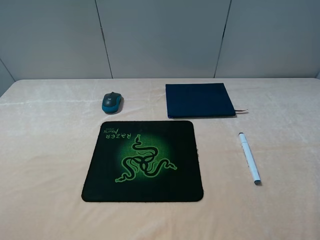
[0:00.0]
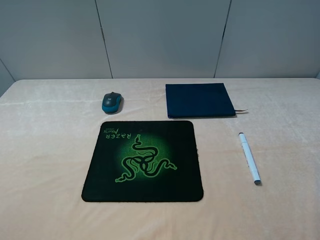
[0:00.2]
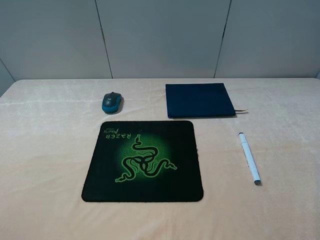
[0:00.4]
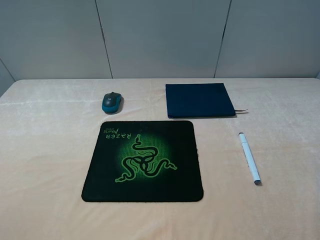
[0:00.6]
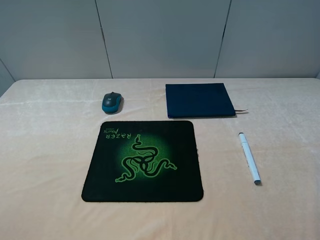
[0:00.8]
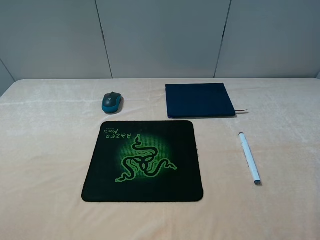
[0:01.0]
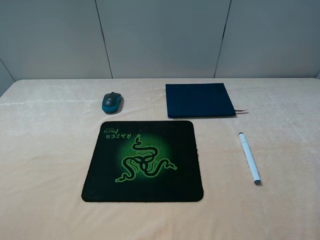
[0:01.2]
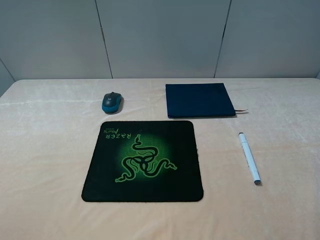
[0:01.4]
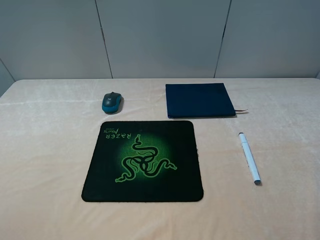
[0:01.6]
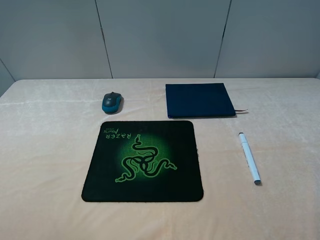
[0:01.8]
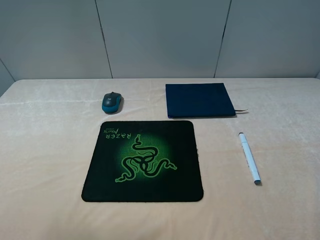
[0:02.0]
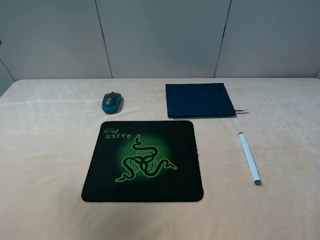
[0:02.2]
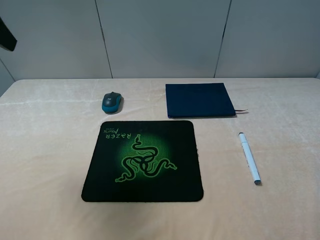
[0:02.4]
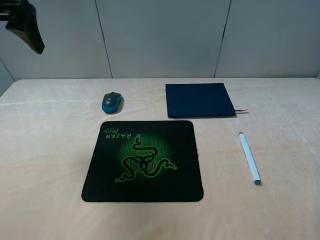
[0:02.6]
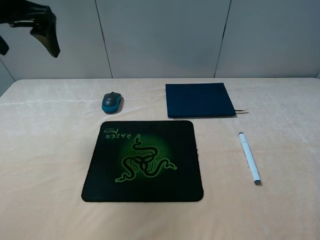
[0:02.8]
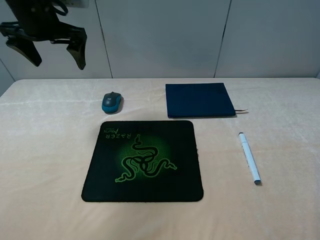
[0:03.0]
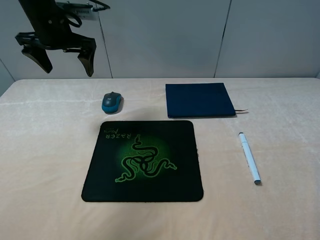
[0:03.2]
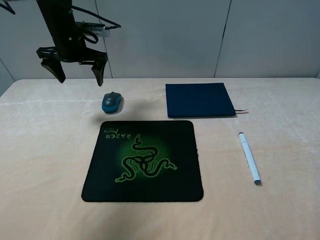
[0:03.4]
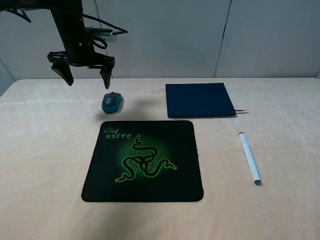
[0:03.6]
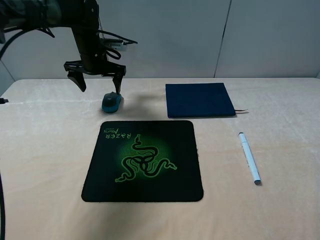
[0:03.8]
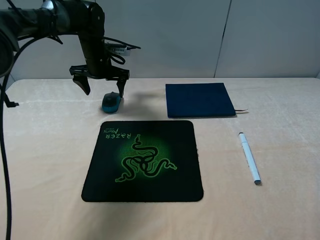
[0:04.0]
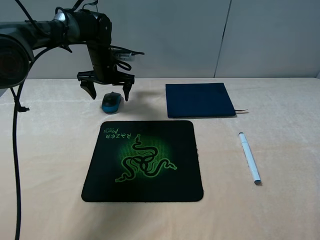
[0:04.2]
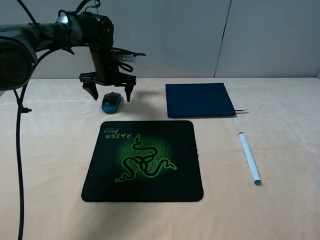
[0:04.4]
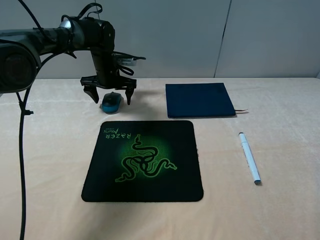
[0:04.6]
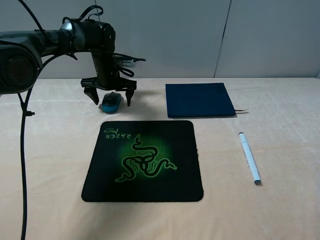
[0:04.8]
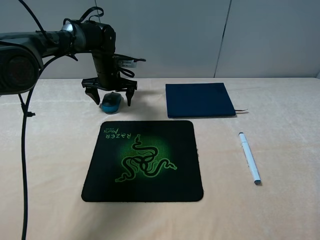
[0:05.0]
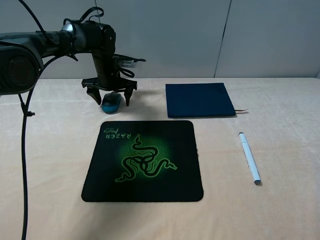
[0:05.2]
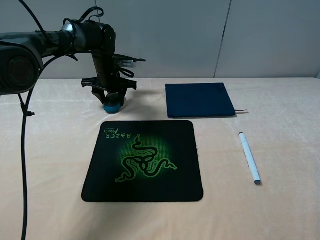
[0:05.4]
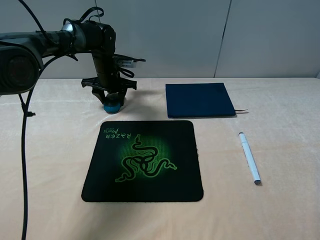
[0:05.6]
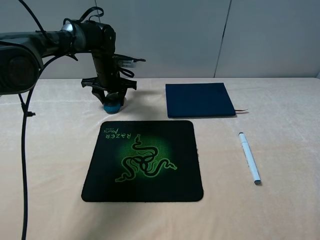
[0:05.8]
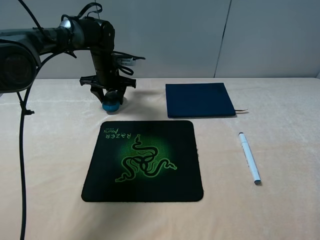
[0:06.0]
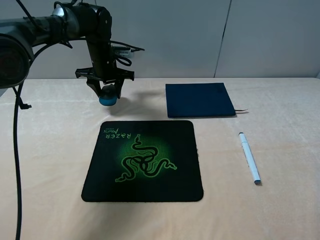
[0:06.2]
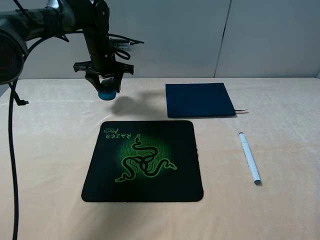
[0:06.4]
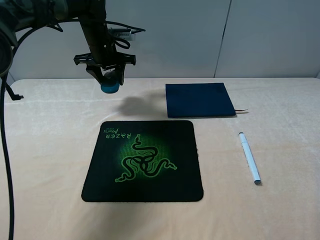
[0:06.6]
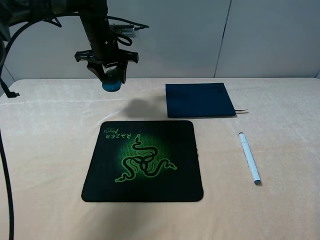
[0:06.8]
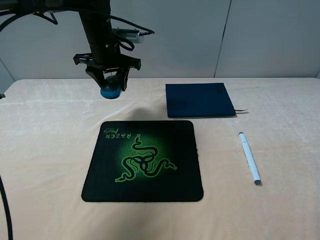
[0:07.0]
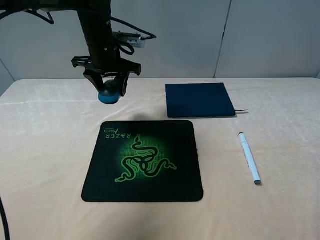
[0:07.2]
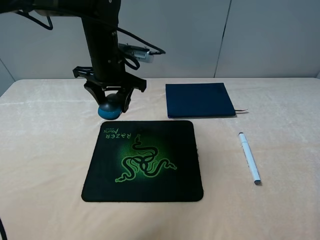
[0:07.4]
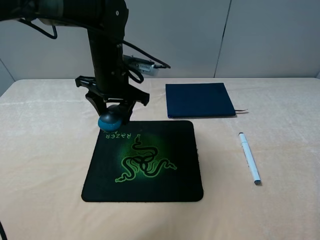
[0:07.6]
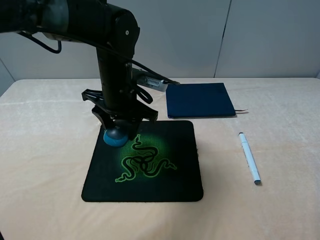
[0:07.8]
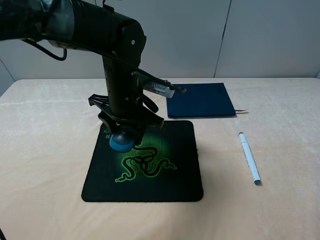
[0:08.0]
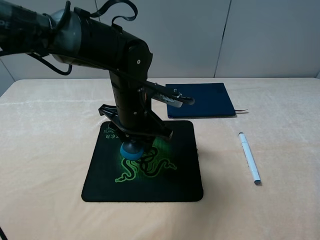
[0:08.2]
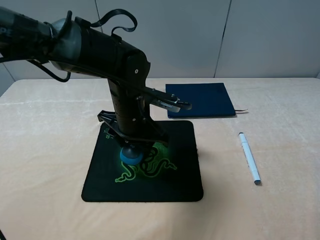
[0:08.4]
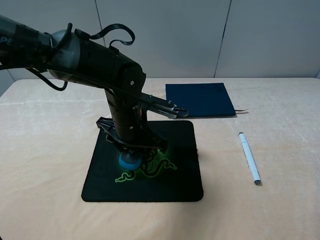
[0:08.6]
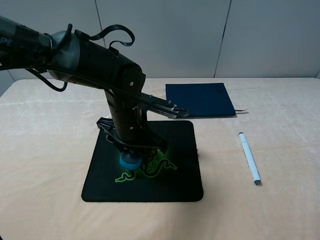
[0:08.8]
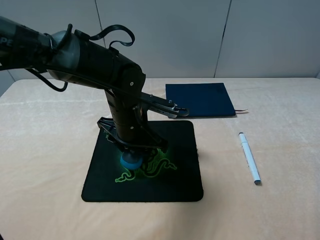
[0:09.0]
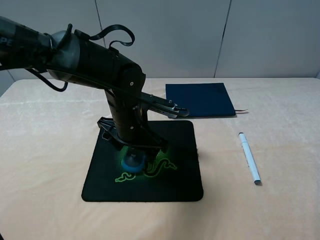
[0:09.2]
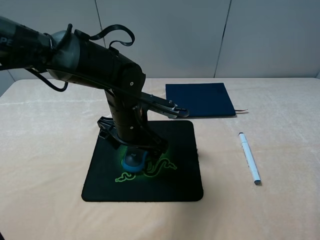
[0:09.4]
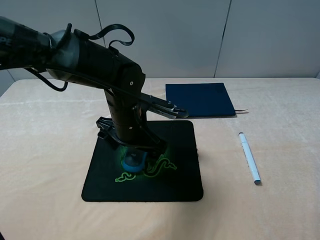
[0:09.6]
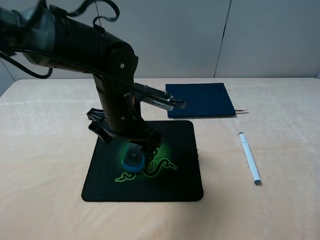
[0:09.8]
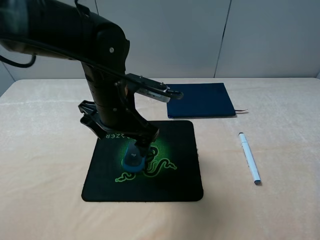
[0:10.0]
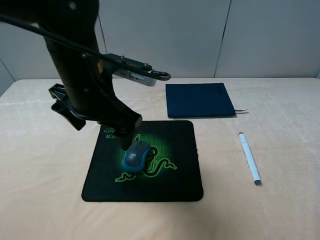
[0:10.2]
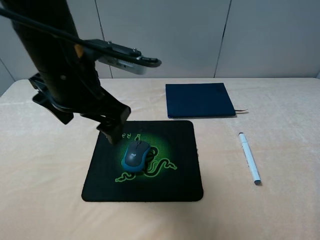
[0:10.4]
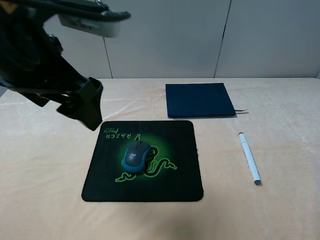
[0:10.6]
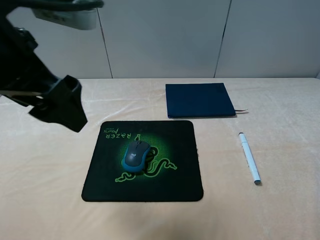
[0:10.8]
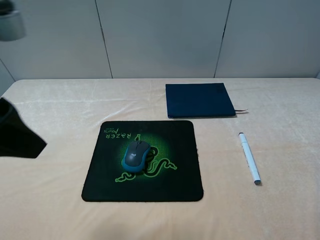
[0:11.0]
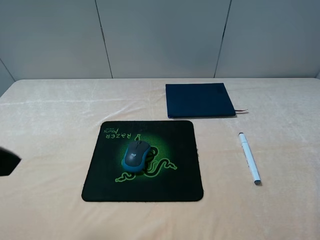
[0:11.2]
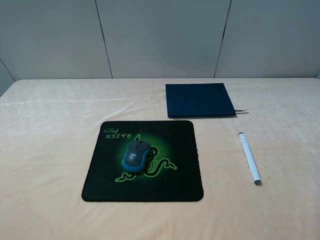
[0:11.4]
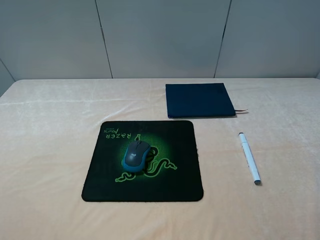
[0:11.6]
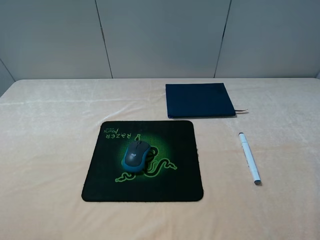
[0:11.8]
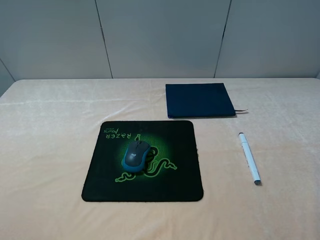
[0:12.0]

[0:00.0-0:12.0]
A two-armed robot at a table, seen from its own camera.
Step, 0:00.0 to 0:05.6: Grasp the mouse with the left gripper.
Step, 0:05.8 to 0:09.8: Place the mouse on the mouse pad with the left gripper.
0:01.6 to 0:03.0: The left gripper moves forward, some 35 cm.
0:03.0 to 0:04.4: The left gripper is displaced downward, forward and to the right by about 20 cm.
0:04.4 to 0:06.0: The left gripper closes its fingers.
0:06.0 to 0:07.6: The left gripper is displaced backward, upward and to the right by some 20 cm.
0:07.6 to 0:09.0: The left gripper travels downward and backward by roughly 10 cm.
0:09.0 to 0:10.4: The left gripper travels upward and to the left by some 15 cm, and opens.
0:10.4 to 0:12.0: The left gripper goes some 25 cm to the left and backward.

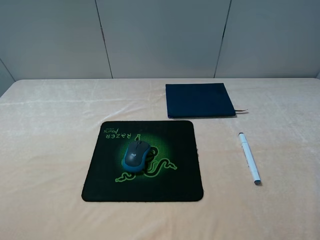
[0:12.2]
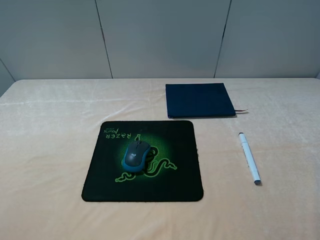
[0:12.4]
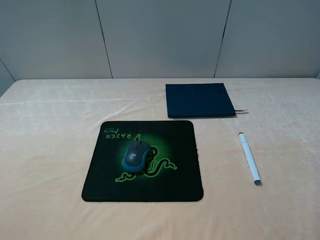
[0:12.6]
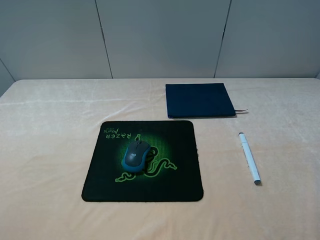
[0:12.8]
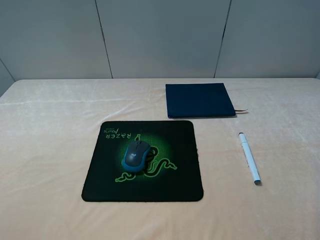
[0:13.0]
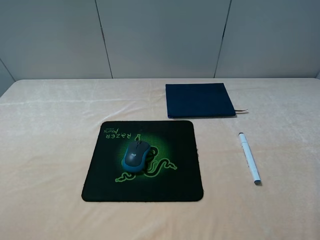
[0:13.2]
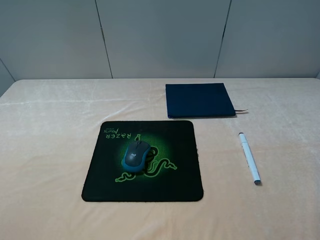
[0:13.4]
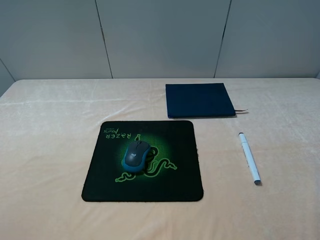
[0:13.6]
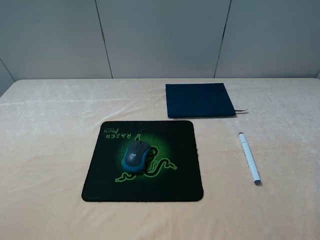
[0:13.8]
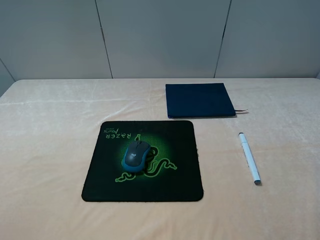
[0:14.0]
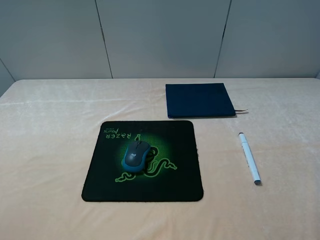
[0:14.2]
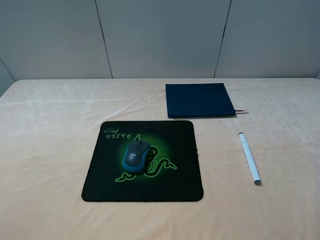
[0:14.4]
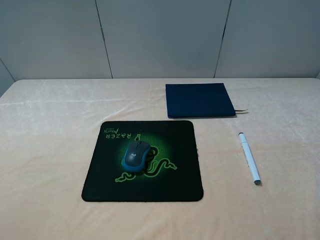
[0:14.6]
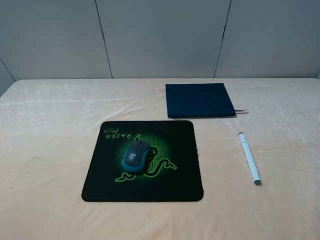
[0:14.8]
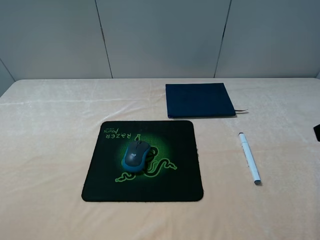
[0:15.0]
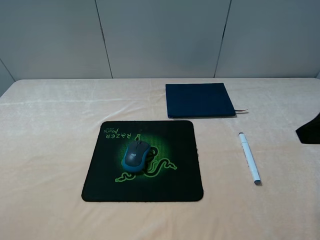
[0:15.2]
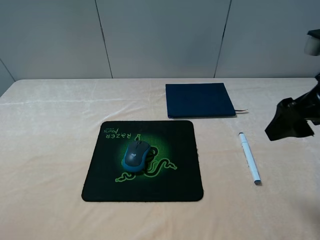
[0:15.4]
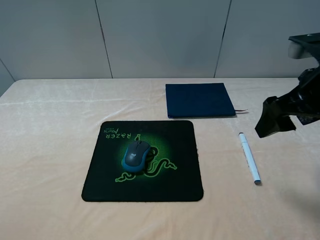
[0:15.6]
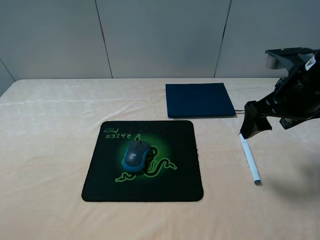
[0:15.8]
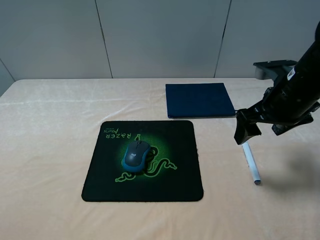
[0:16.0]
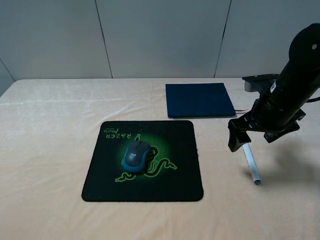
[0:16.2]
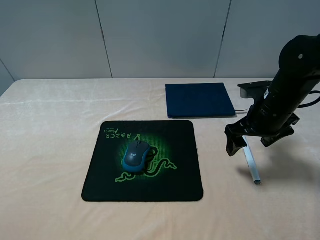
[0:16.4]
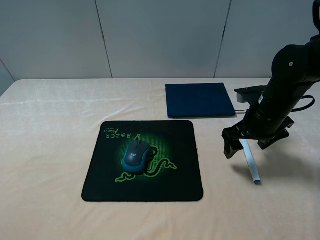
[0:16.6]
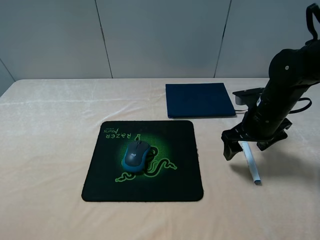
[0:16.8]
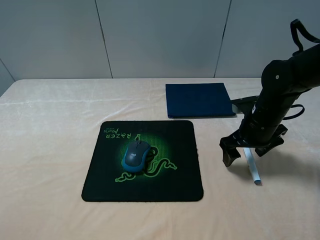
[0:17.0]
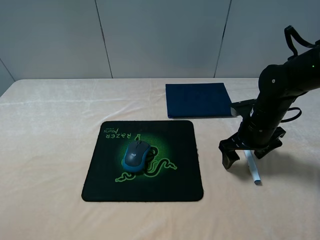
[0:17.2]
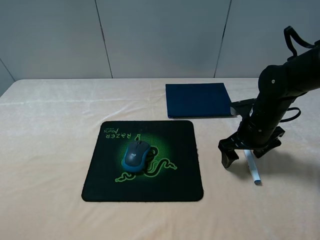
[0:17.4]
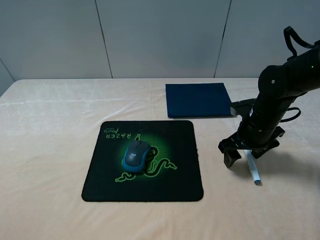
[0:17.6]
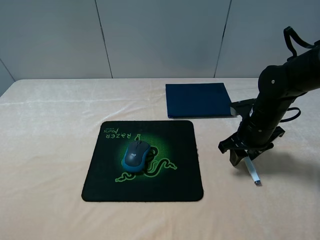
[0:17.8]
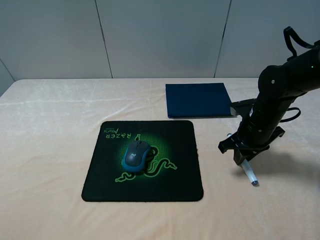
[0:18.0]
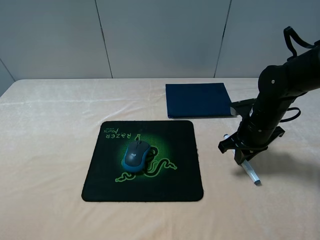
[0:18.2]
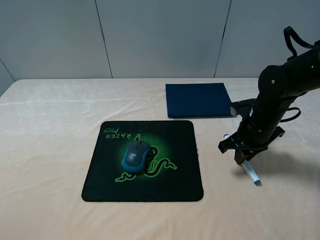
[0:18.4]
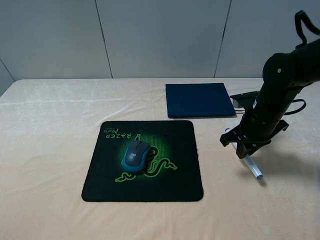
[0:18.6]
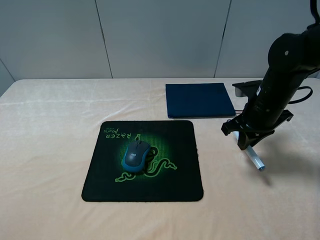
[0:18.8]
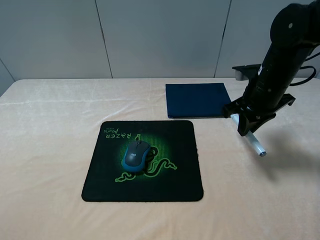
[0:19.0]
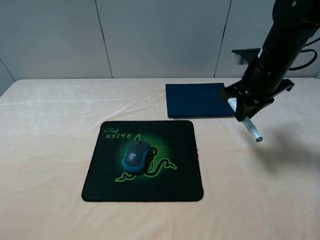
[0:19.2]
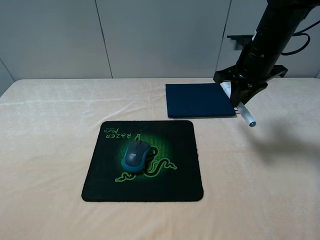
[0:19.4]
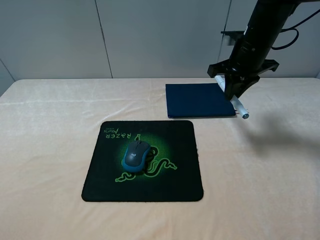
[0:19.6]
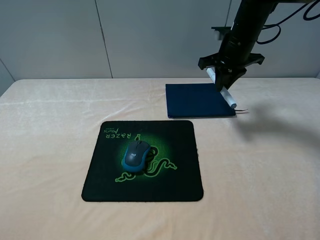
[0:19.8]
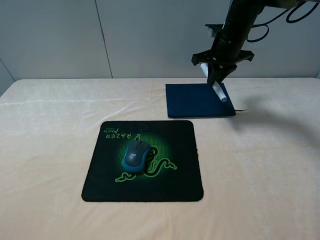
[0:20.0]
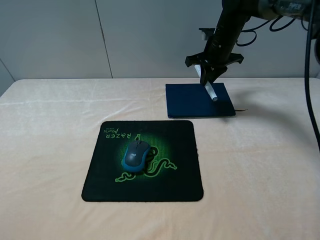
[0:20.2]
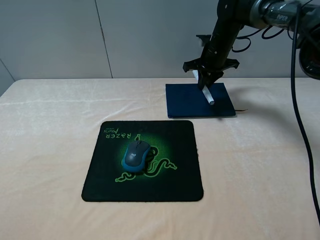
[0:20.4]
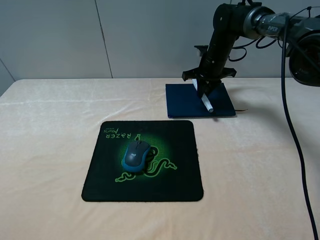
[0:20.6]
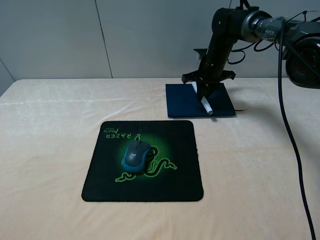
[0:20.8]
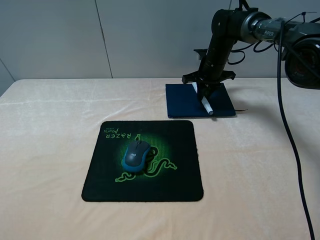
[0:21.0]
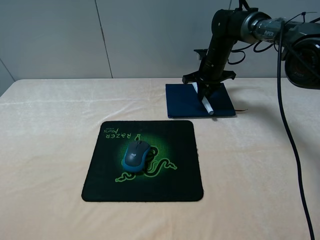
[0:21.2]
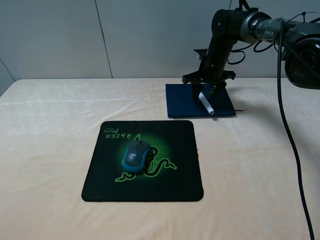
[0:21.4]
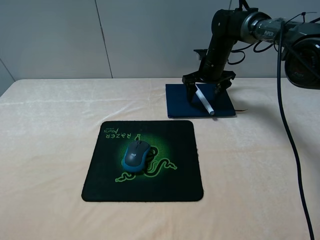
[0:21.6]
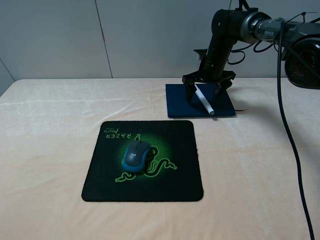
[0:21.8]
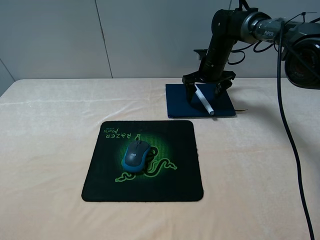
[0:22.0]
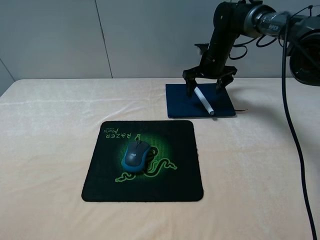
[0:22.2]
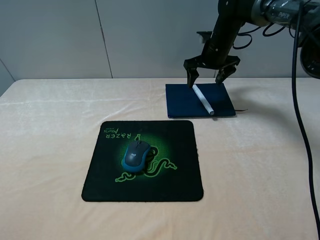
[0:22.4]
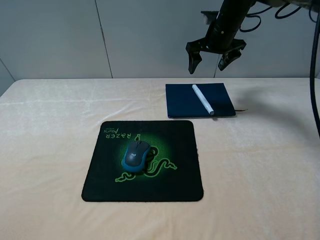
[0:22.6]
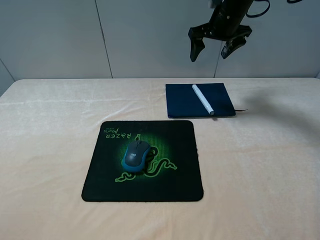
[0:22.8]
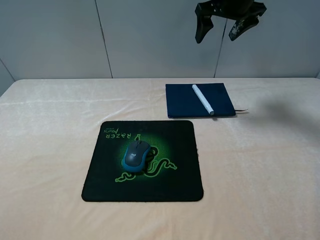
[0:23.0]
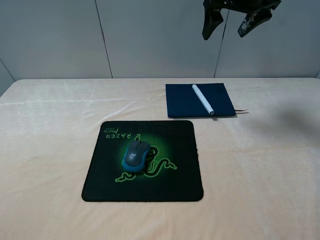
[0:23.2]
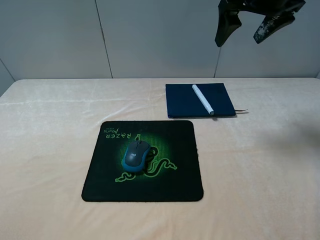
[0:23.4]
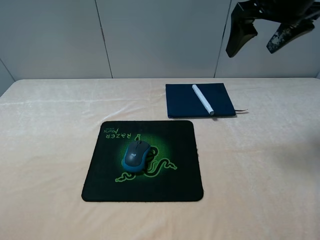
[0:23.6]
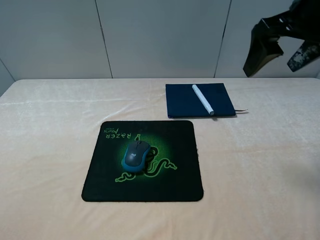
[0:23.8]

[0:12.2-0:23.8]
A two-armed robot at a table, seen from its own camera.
Step, 0:12.2 to 0:18.4: Grasp the marker with the right gripper.
Step, 0:18.6 to 0:22.0: Place the marker on the notebook with the right gripper.
0:15.0 to 0:16.6: The right gripper is displaced downward and forward by approximately 25 cm.
0:16.6 to 0:18.0: The right gripper closes.
0:18.0 to 0:19.4: The right gripper shifts some 15 cm upward and forward.
0:19.4 to 0:21.0: The right gripper is displaced forward and downward by some 15 cm.
0:21.0 to 0:22.4: The right gripper travels upward by some 5 cm, and opens up.
0:22.4 to 0:23.8: The right gripper travels backward and upward by roughly 25 cm.
